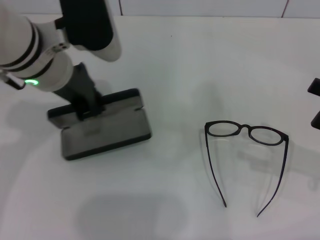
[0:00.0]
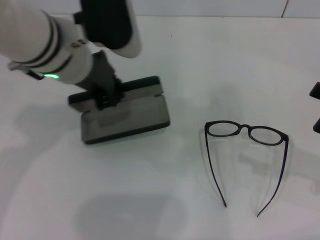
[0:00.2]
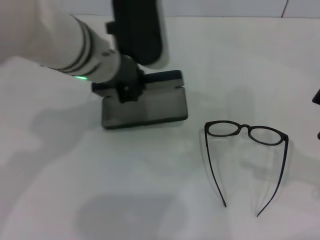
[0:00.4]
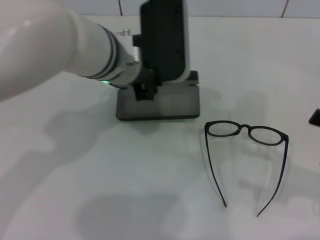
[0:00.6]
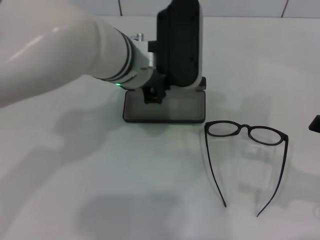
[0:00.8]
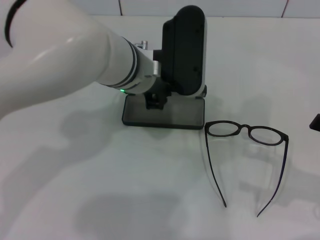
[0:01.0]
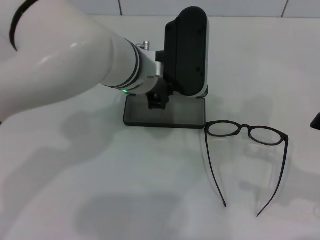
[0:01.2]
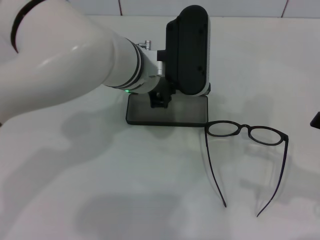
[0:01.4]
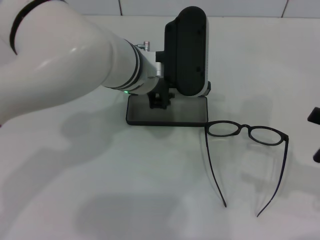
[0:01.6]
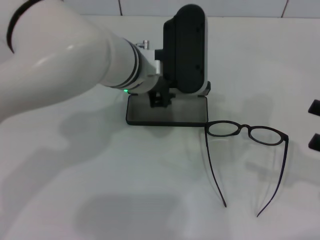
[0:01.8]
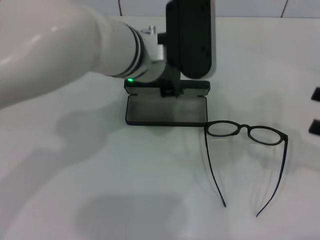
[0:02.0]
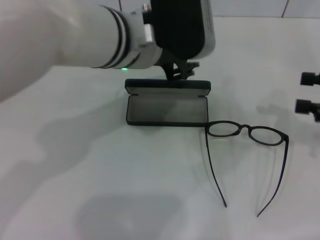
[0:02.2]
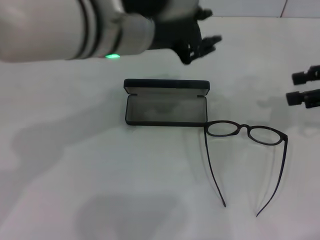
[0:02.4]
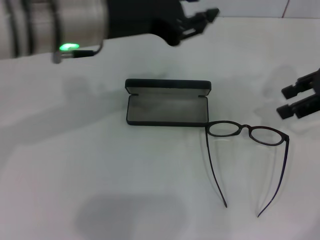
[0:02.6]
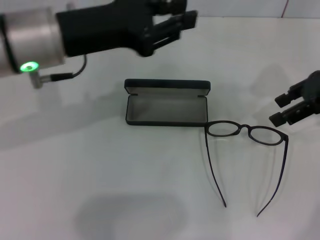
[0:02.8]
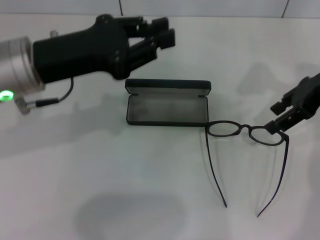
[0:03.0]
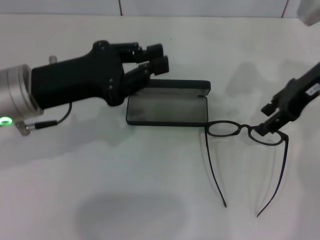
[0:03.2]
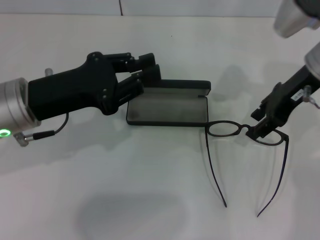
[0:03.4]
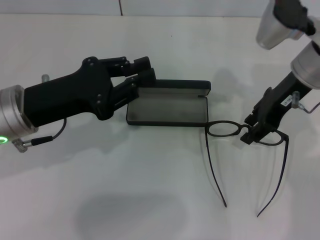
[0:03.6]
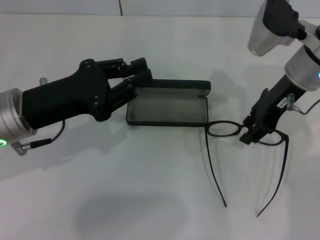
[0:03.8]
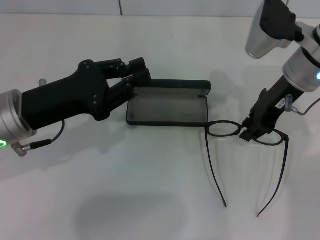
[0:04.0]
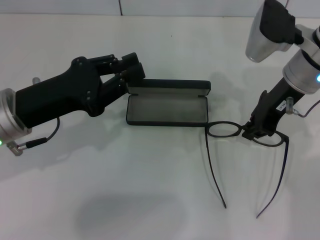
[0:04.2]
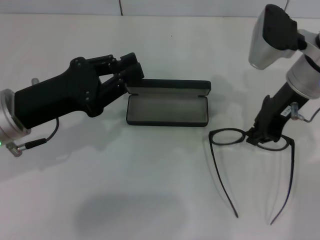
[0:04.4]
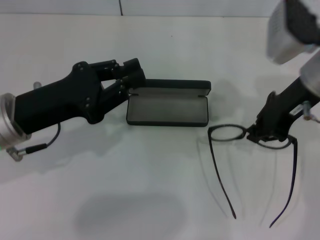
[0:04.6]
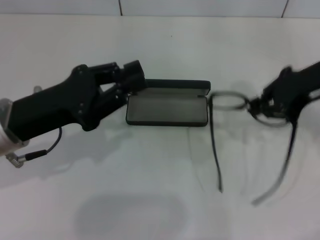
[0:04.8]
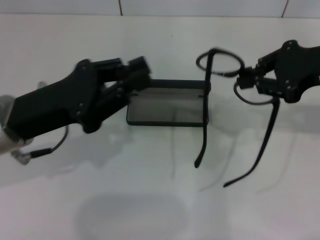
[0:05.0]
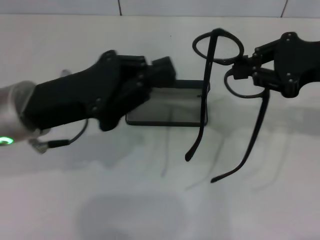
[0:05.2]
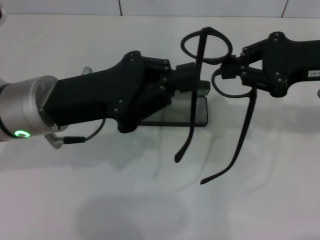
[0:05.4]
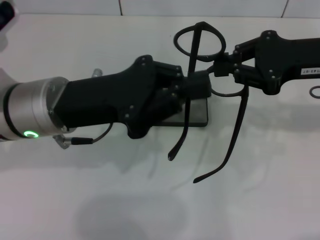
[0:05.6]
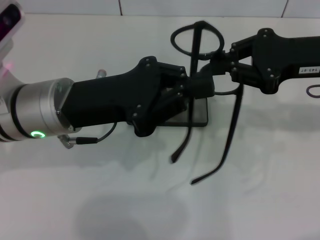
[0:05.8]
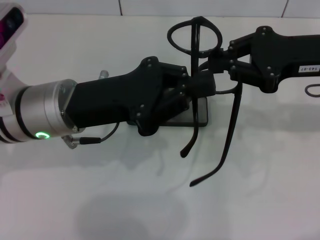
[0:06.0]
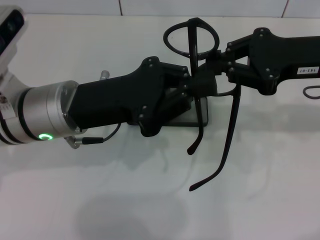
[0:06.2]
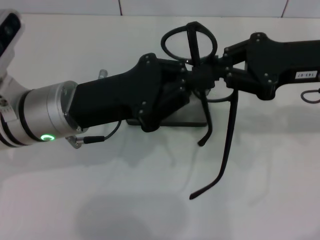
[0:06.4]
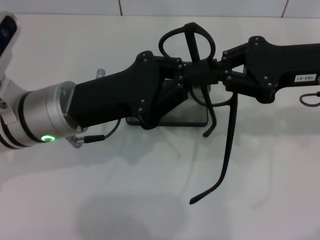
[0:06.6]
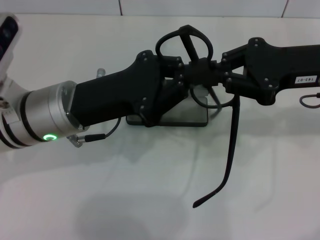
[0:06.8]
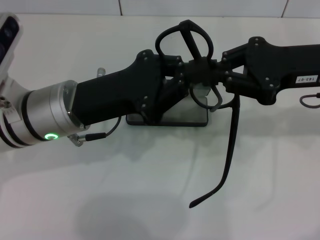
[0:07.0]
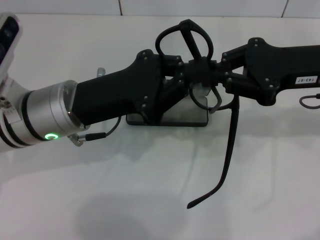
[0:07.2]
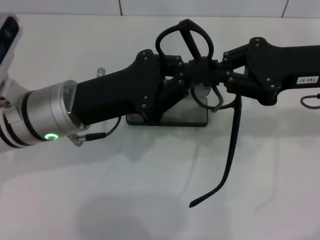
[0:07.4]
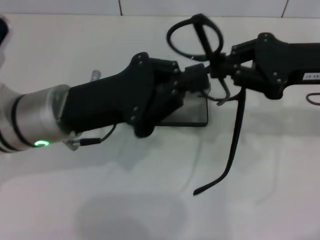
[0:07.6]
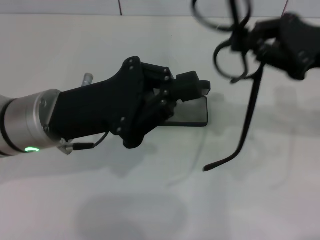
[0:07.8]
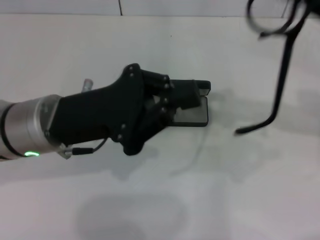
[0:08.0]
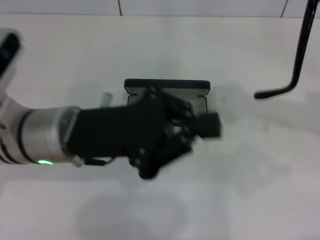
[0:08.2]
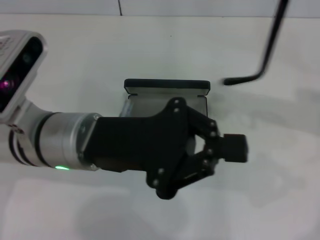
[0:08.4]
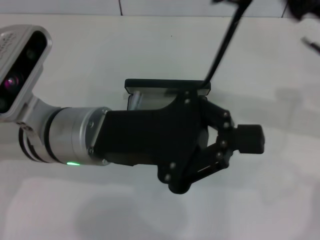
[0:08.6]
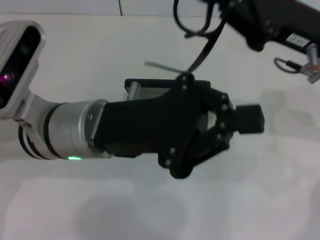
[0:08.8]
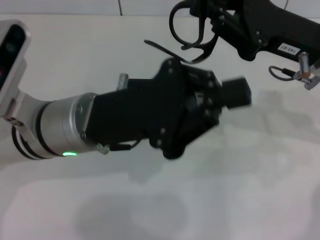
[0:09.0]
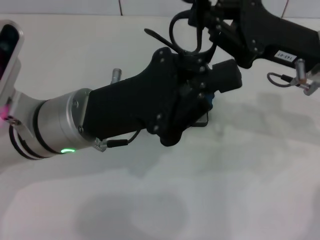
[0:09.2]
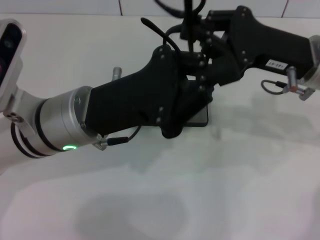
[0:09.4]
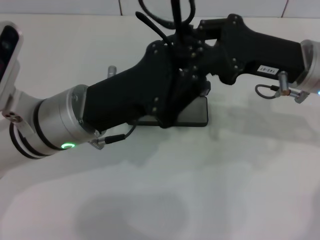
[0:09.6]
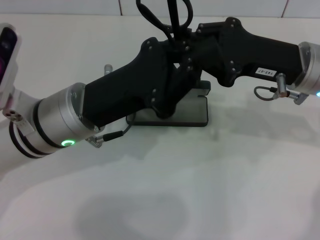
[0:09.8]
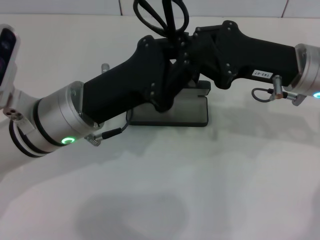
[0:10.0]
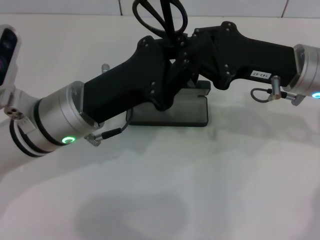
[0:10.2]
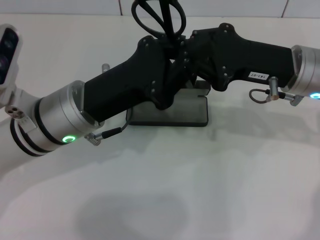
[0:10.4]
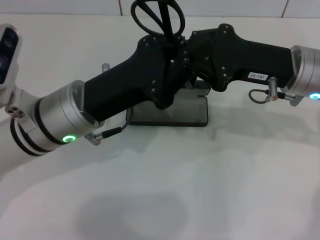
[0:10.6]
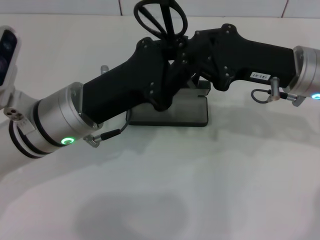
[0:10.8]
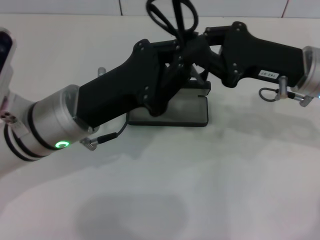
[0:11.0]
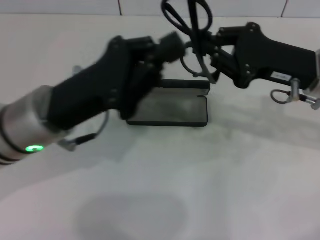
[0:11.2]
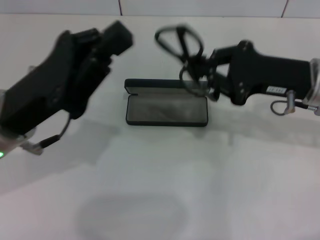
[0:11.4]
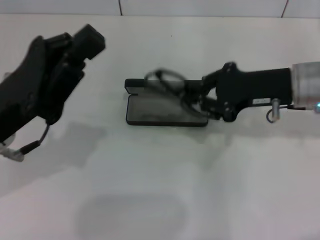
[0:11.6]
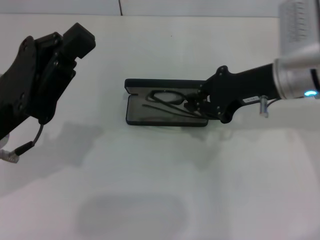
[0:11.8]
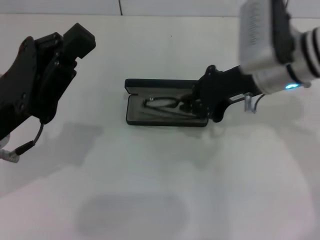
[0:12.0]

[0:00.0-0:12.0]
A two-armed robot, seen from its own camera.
Step, 0:00.0 to 0:01.6: Place the glasses case in the center of the table with your left hand.
Step, 0:01.8 to 0:04.2: Grab the eyeglass frame with your right hand.
Step, 0:04.4 to 0:10.4: Fold the frame with your left hand.
0:00.0 to 0:01.6: The left gripper heads to the right, covering some 10 cm.
0:01.6 to 0:03.0: The left gripper travels to the left by approximately 15 cm; the right gripper moves forward, upward and to the left, approximately 20 cm.
0:03.0 to 0:04.4: The right gripper travels to the left by roughly 10 cm, and closes. Meanwhile the left gripper goes approximately 5 cm downward.
0:04.4 to 0:06.0: Both grippers travel together to the right, about 5 cm.
0:06.0 to 0:07.6: There are only small adjustments of the grippers.
0:10.4 to 0:12.0: The left gripper heads to the left, covering some 10 cm, while the right gripper changes place by some 5 cm.

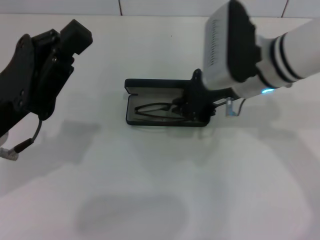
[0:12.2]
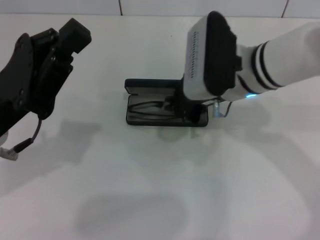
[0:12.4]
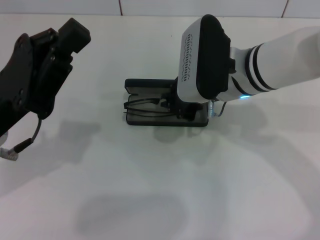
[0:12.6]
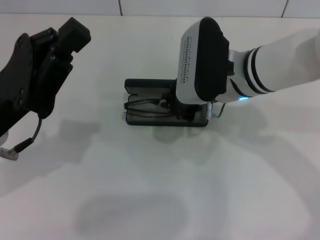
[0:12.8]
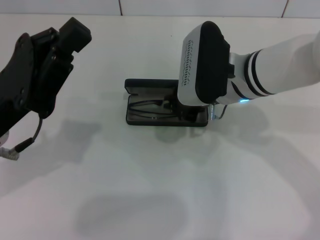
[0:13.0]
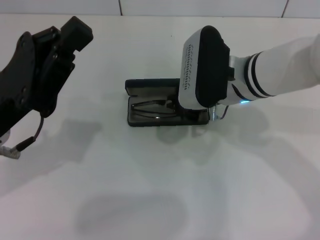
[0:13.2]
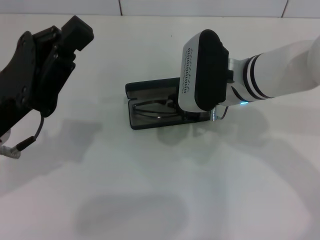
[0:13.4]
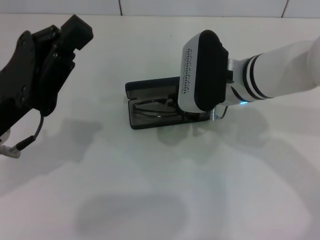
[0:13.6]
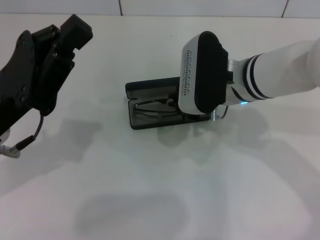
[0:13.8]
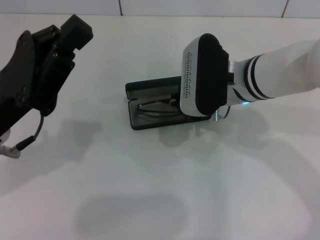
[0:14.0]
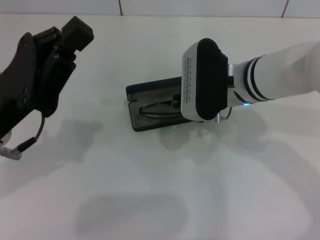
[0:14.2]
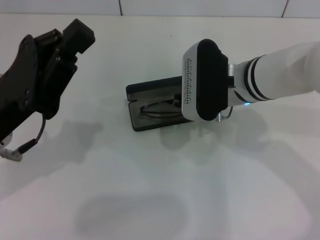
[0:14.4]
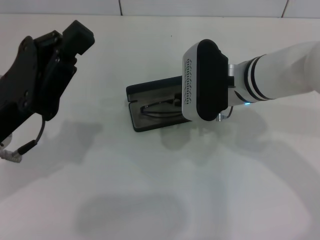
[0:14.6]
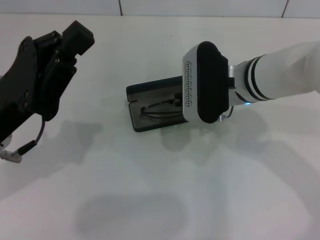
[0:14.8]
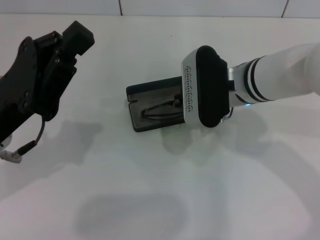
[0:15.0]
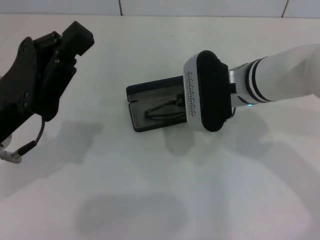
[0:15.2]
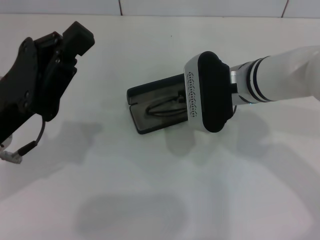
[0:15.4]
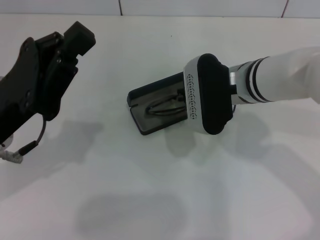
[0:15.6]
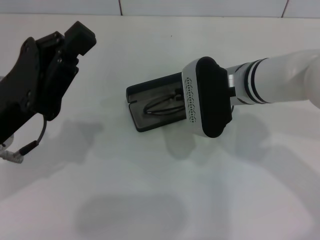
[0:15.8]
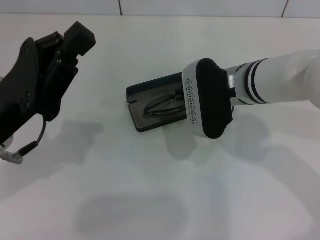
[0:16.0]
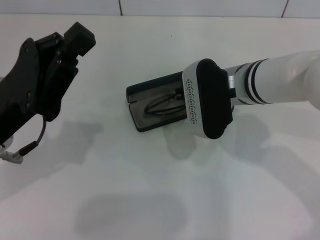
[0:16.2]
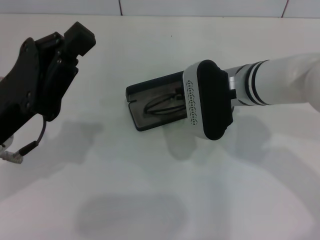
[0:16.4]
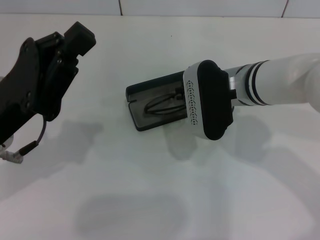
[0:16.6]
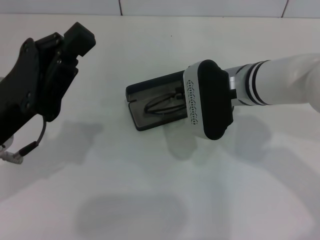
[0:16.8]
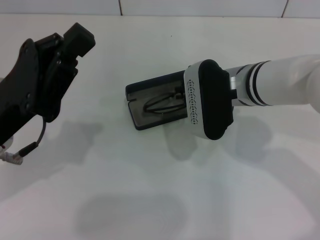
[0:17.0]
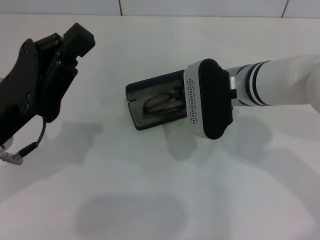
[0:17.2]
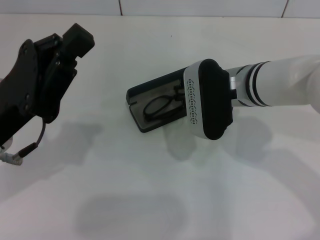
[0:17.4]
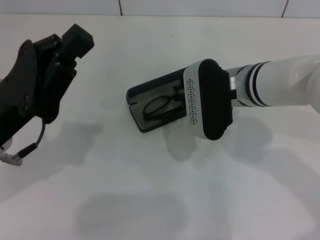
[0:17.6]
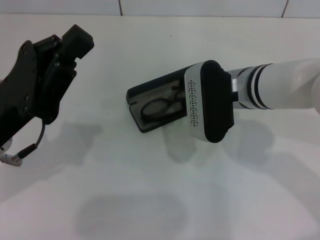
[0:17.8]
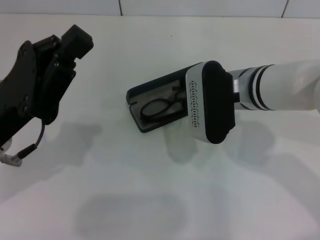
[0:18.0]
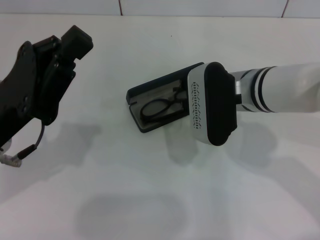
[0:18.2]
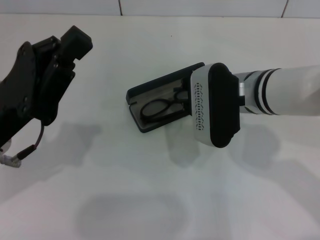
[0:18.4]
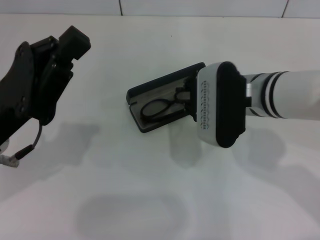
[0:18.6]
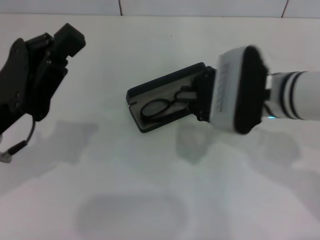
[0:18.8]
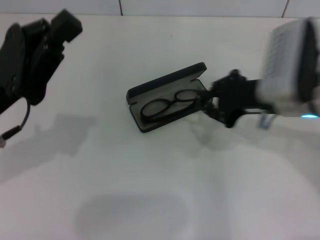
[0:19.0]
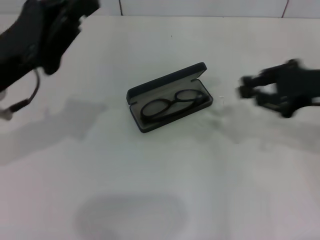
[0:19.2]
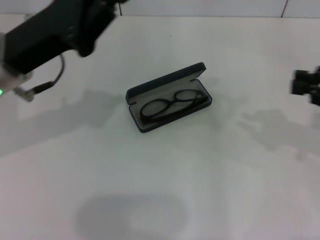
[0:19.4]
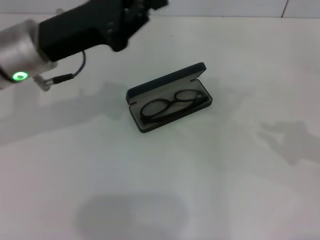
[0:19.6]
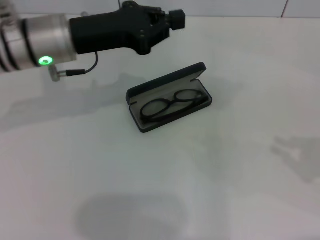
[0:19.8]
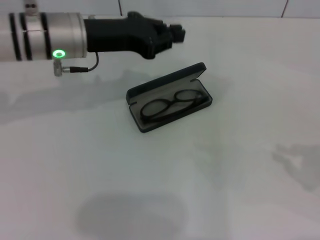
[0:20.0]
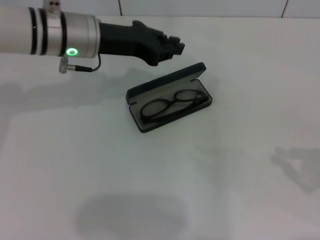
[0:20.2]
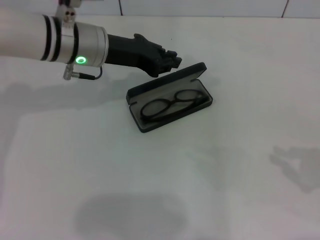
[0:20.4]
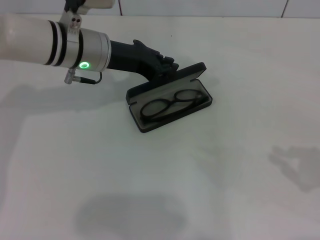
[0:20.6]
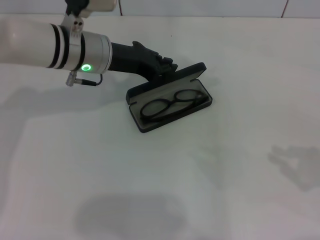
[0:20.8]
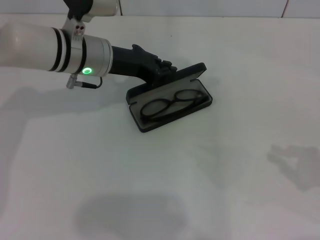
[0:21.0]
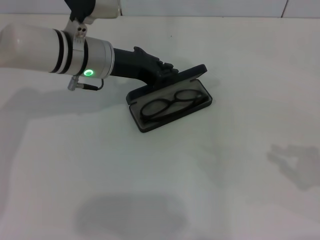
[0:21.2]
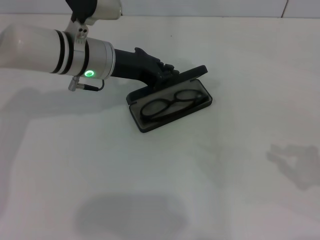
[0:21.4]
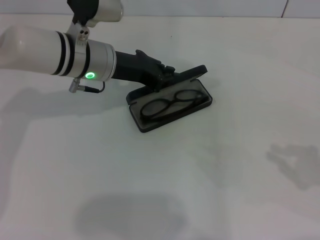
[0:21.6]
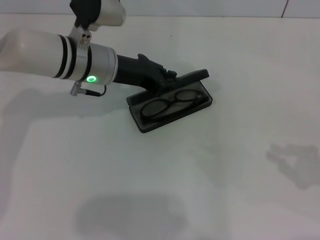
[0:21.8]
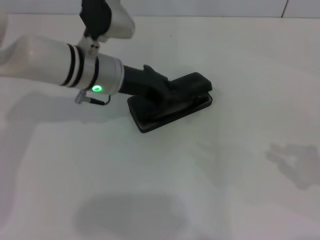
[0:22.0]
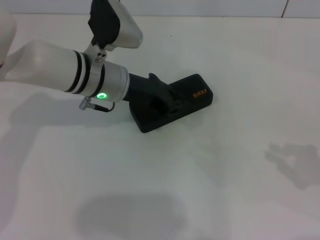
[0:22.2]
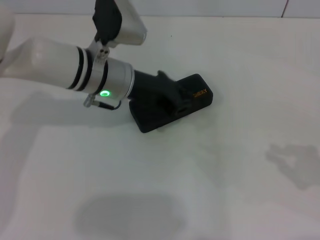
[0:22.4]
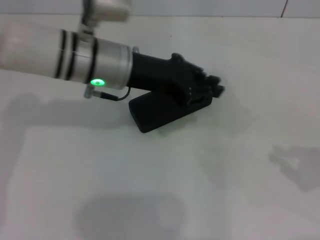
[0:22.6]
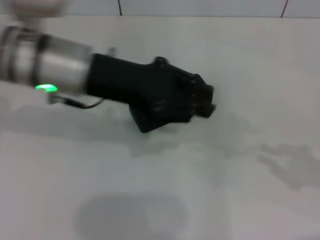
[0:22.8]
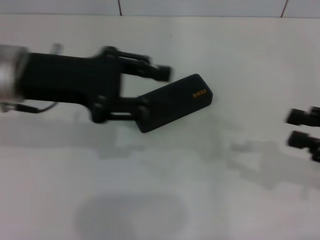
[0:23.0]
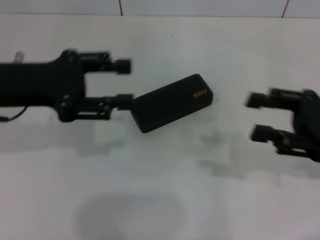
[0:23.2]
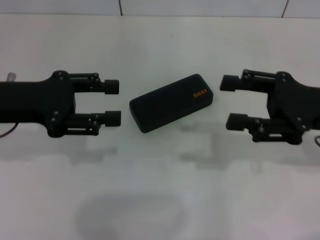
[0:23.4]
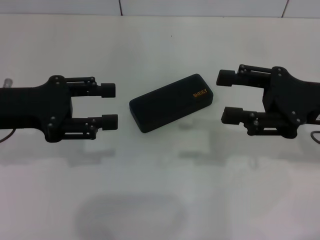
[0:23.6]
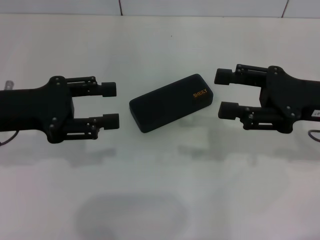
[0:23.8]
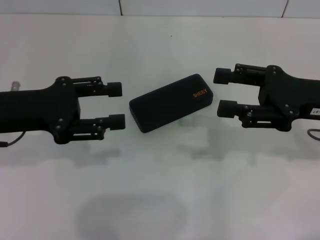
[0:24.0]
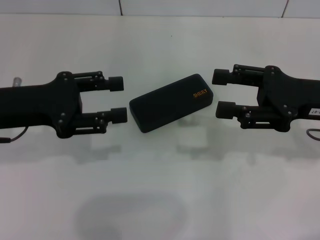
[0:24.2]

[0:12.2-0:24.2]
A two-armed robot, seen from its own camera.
Step, 0:12.2 to 0:17.6: Put the glasses into the case with your right hand.
Step, 0:18.0 to 0:22.2: Close the glasses case with your left hand.
0:12.2 to 0:13.8: The grippers make only small movements.
0:13.8 to 0:16.6: There are only small adjustments of the grippers.
0:16.6 to 0:18.2: Both grippers stay about where they are.
0:18.2 to 0:19.8: The right gripper travels to the right and backward by approximately 30 cm. The left gripper moves forward and to the right, some 15 cm.
0:19.8 to 0:21.2: The left gripper changes place by some 5 cm.
0:21.2 to 0:22.6: The left gripper moves approximately 5 cm.
0:22.6 to 0:24.2: The right gripper heads to the left and forward, covering some 15 cm, and opens its fingers. The left gripper goes approximately 15 cm to the left and backward, and opens up.
